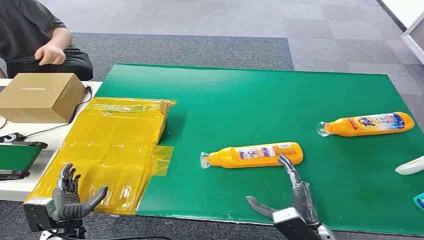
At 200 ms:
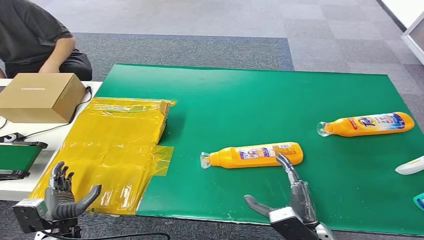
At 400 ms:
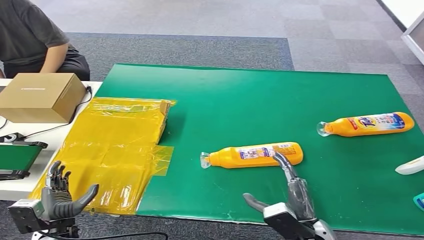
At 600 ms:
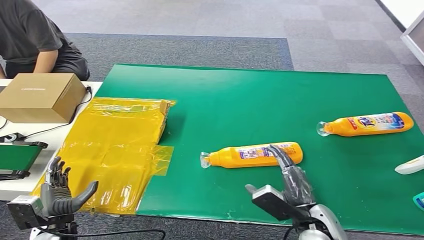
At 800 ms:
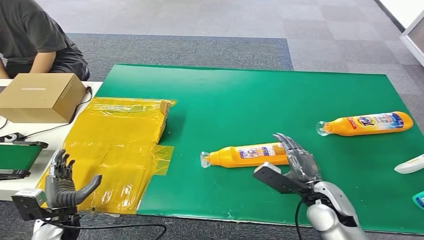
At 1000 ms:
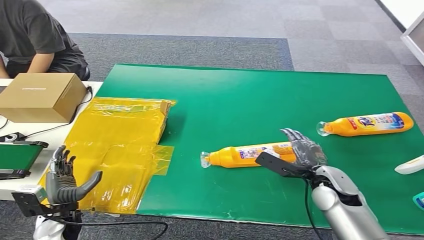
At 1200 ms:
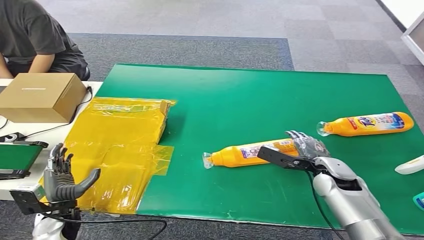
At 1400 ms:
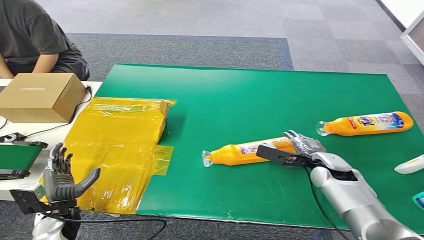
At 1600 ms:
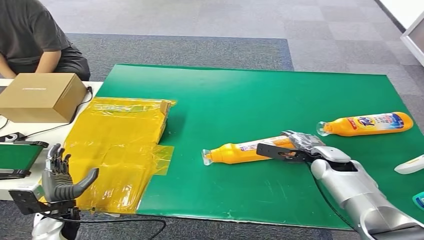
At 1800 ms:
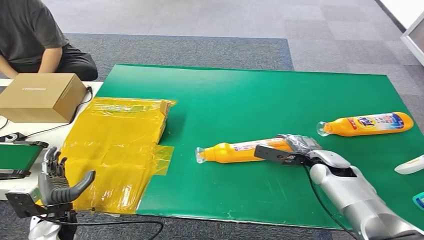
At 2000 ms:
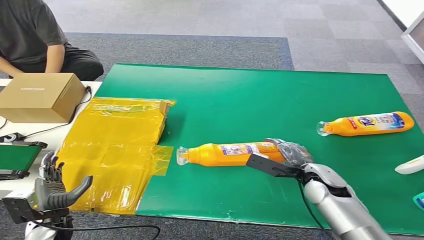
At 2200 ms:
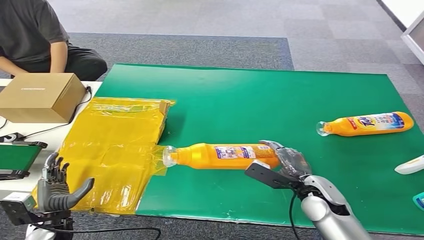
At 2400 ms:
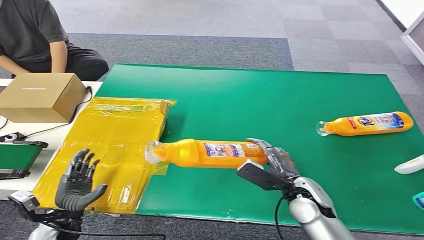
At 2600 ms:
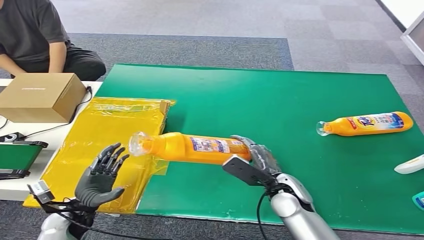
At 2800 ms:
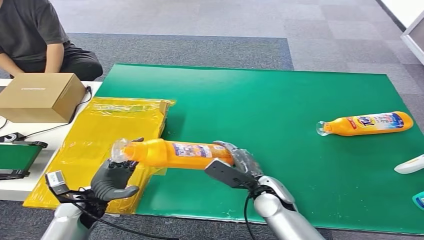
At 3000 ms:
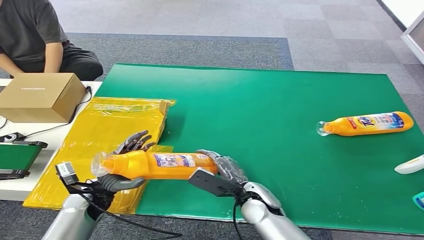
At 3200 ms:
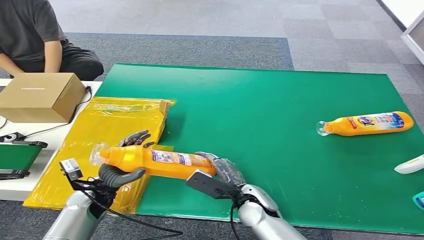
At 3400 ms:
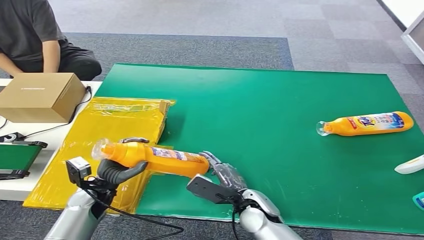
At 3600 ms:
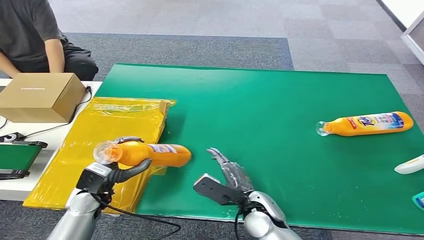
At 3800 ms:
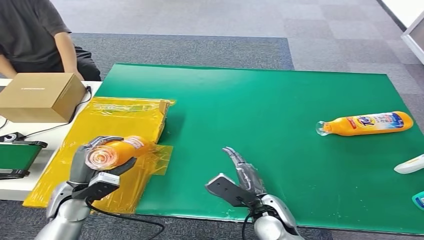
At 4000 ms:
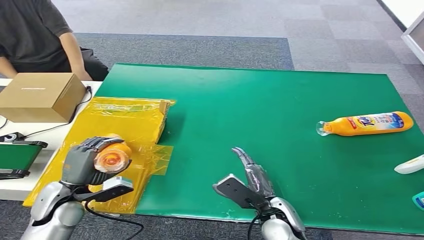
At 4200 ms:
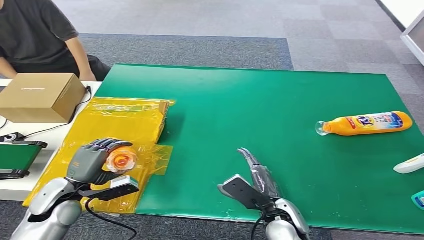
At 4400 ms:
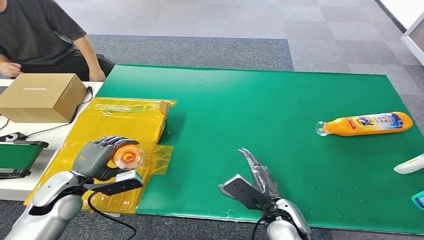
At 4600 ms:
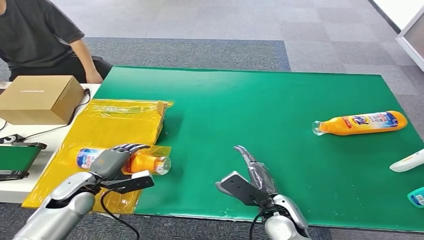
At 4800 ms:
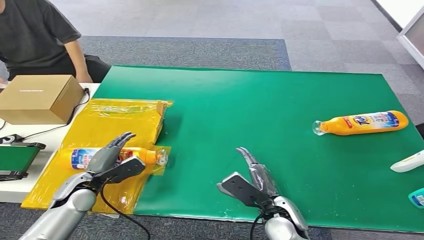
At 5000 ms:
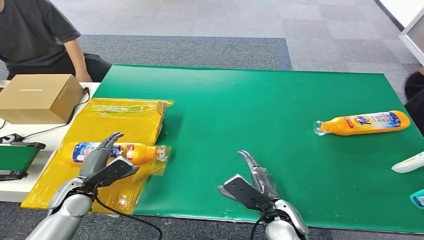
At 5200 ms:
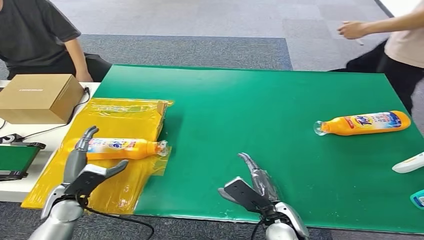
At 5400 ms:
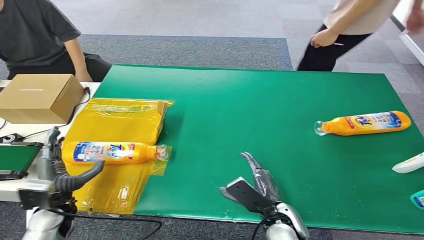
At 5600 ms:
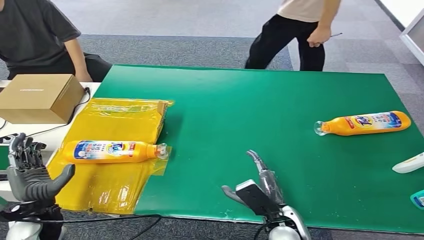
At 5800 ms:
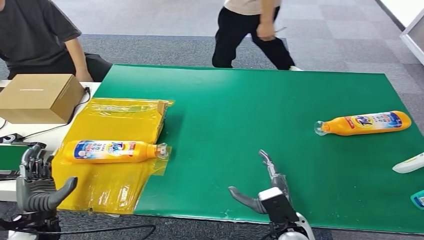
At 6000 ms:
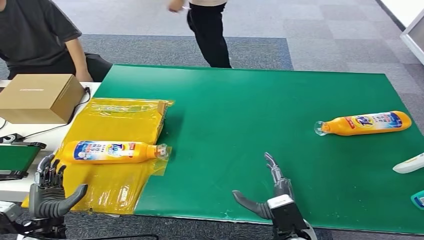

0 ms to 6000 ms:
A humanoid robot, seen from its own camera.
Step, 0 ms to 2400 ms: Pick up the bottle from the table.
Step, 2800 ms to 6000 ms: Turn the bottle to the front side.
3000 ms to 4400 ms: The right hand heads backward, covering some 5 cm; the left hand shifts by about 5 cm.

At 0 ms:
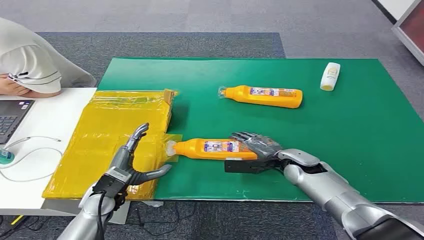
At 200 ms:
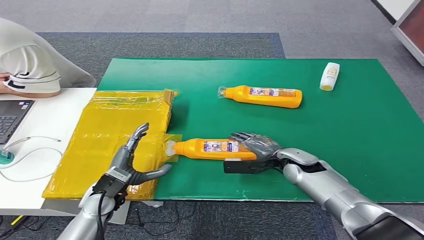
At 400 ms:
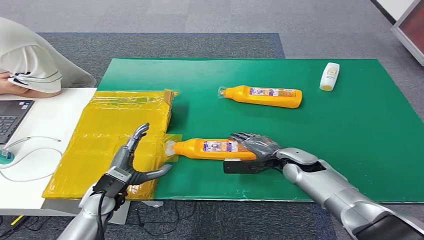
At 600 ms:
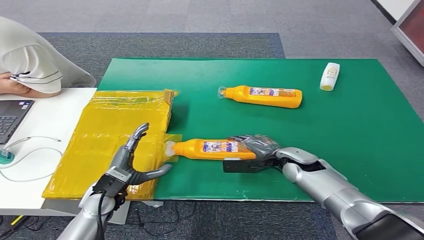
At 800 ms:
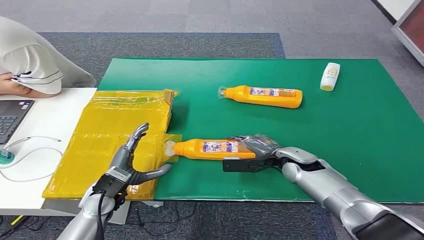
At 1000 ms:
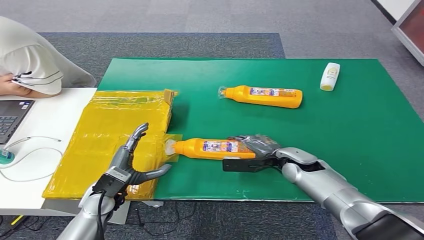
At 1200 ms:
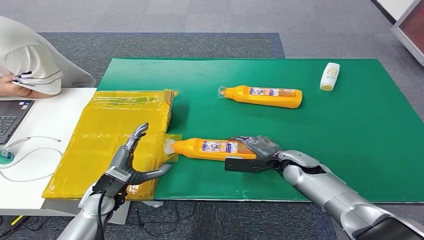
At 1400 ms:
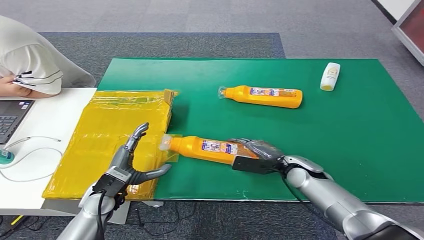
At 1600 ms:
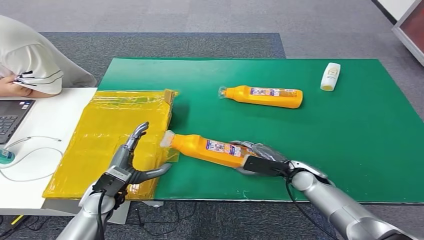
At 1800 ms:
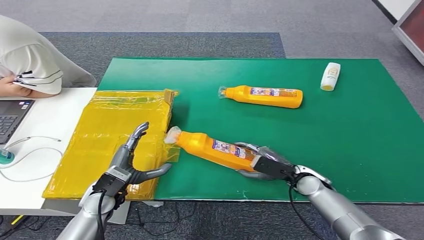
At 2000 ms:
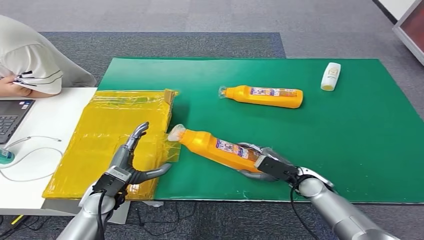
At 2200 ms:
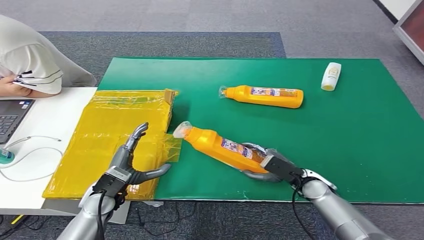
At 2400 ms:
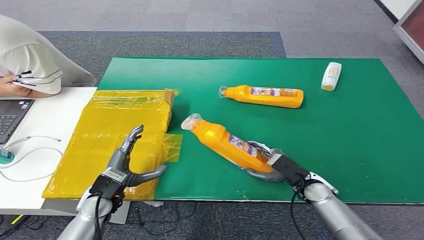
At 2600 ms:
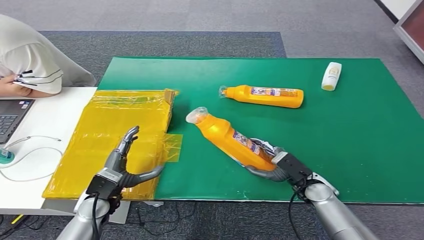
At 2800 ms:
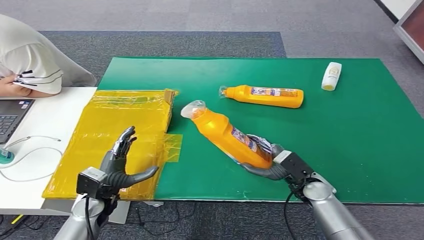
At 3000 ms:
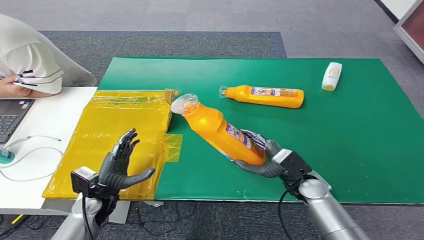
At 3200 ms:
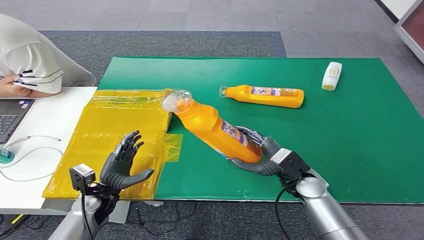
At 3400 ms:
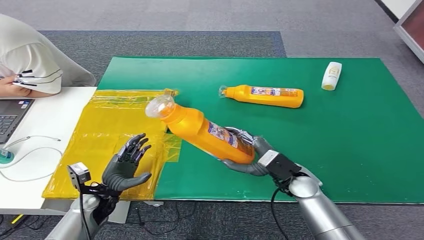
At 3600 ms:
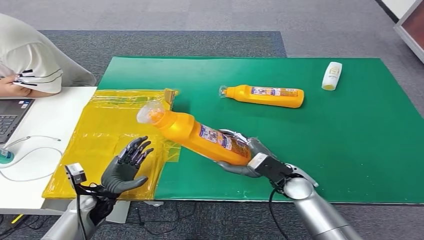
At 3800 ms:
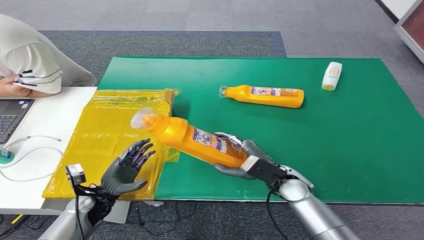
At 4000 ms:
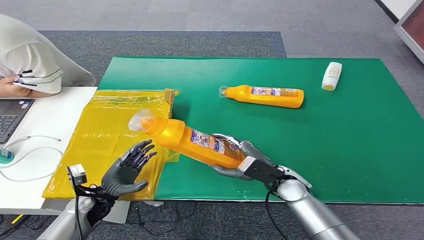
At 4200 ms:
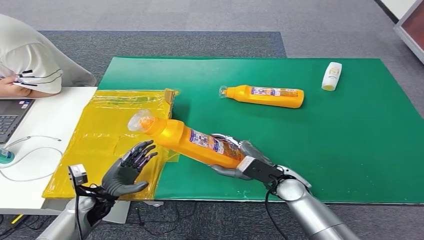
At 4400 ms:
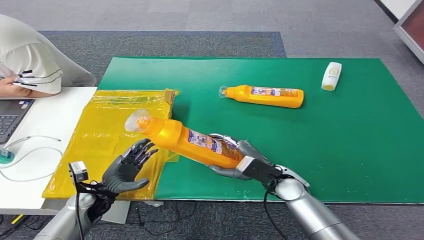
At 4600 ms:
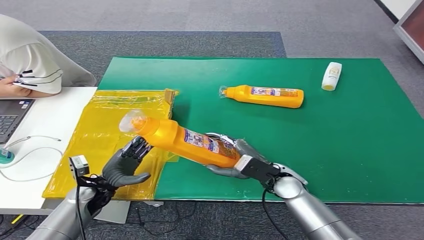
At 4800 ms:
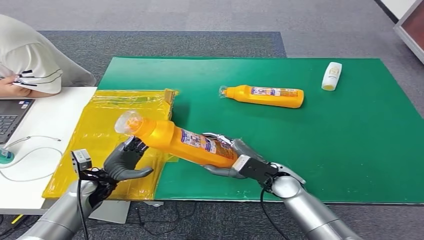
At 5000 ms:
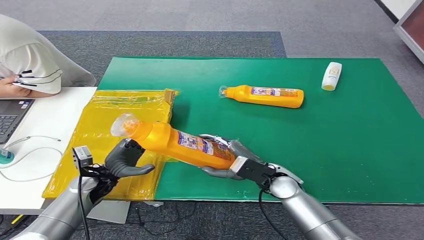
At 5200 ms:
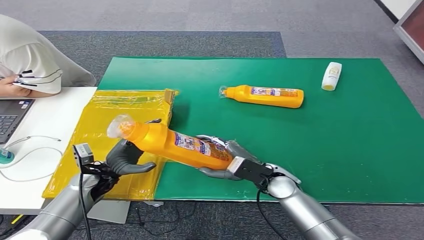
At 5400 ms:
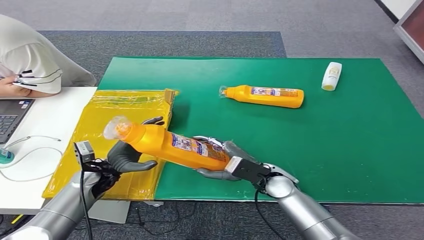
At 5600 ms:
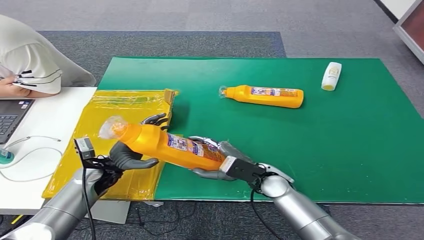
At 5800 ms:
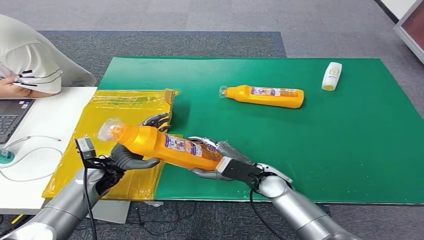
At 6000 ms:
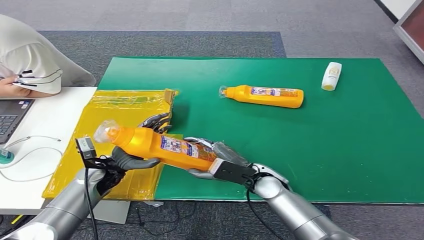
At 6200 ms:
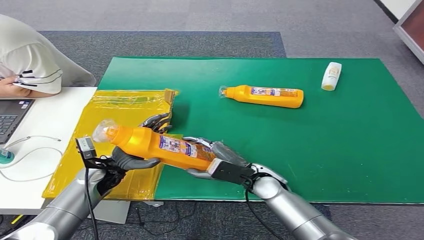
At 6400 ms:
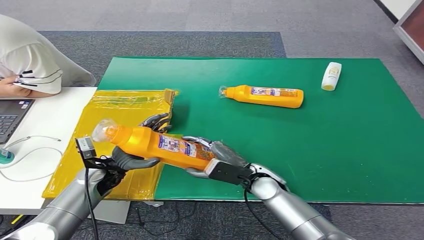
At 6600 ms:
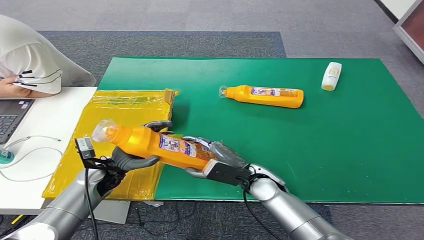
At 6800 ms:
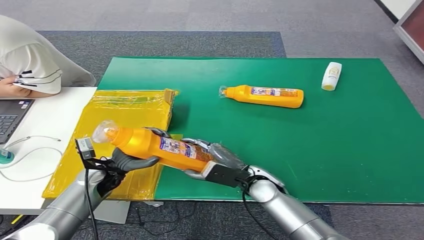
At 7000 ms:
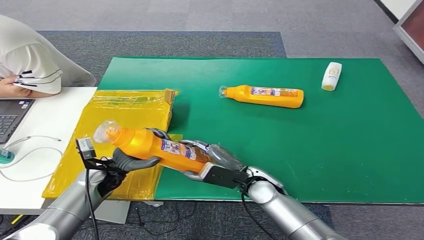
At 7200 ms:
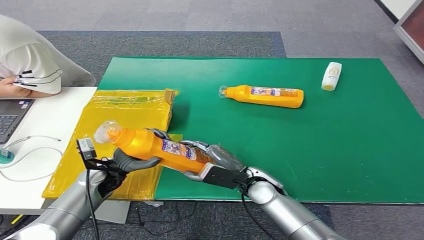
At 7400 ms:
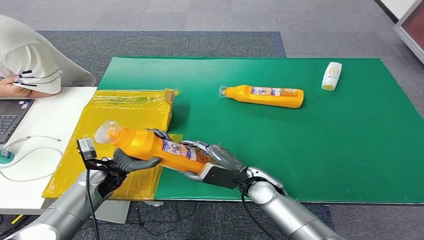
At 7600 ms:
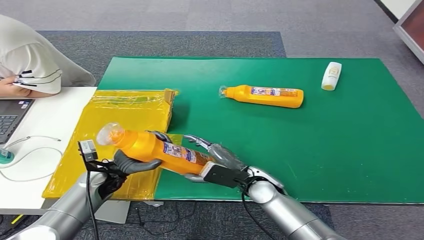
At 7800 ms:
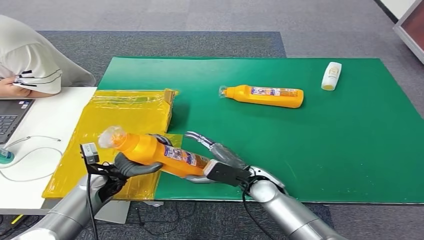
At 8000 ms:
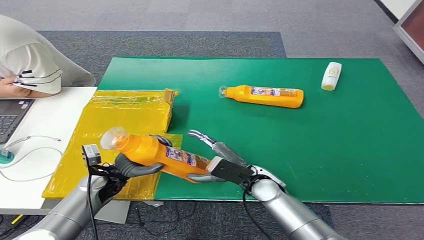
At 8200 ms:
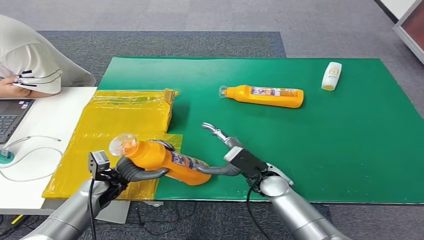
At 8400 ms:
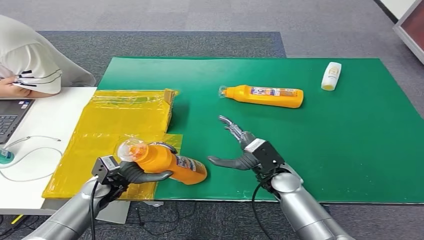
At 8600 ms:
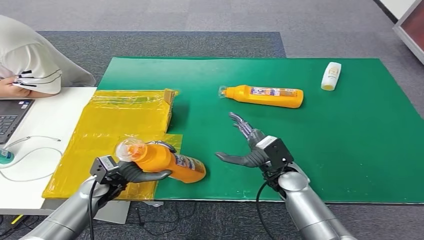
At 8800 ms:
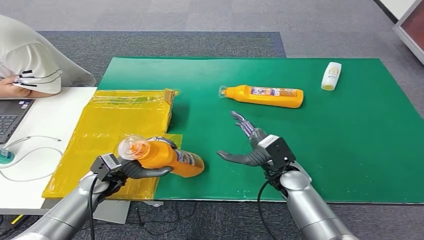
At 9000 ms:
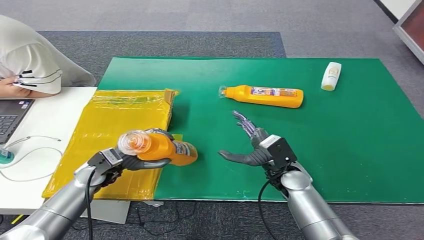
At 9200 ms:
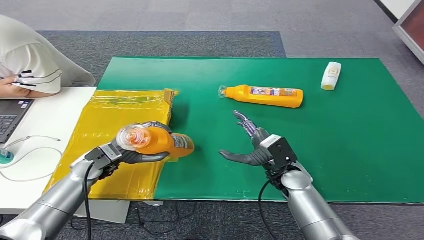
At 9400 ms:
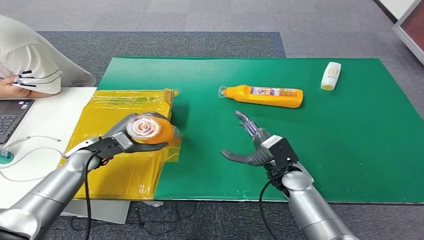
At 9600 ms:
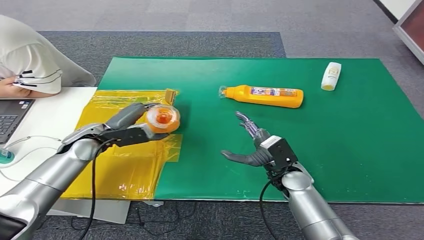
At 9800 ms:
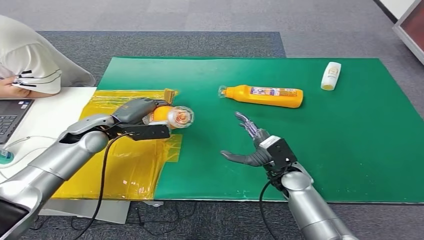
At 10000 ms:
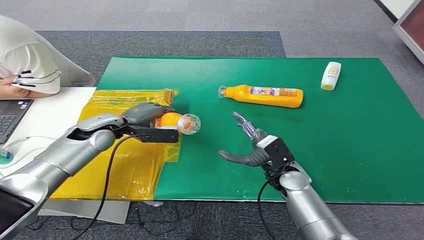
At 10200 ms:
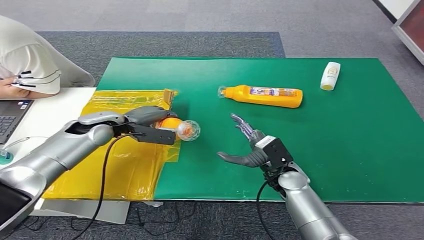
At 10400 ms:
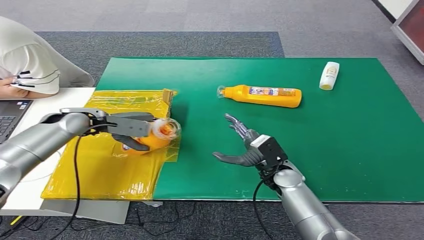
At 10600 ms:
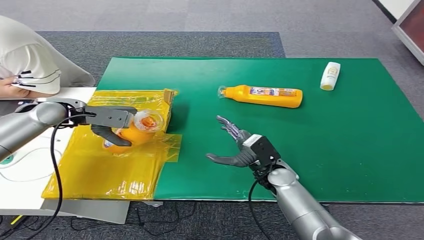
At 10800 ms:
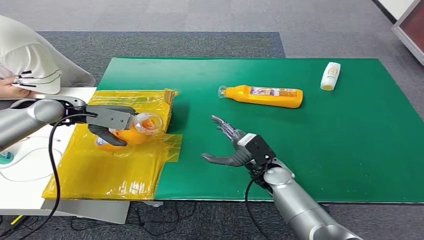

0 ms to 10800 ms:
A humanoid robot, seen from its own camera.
Step, 0 ms to 2000 ms: Pick up the bottle from the table.
3000 ms to 4600 ms: The right hand heads to the left, covering approximately 5 cm.
4600 ms to 6200 ms: The left hand changes place by some 5 cm.
6200 ms to 7800 ms: The hands move only a little.
7800 ms to 9200 ms: The right hand travels to the right by some 5 cm. Meanwhile the left hand moves upward, about 5 cm.
9200 ms to 10800 ms: The left hand shifts approximately 20 cm upward, forward and to the left.
